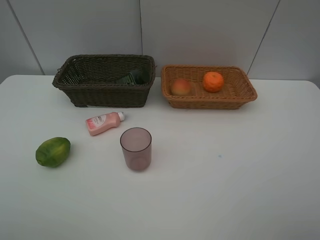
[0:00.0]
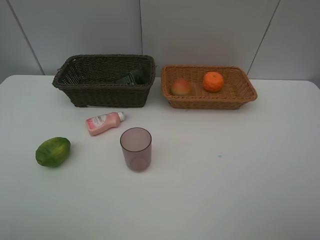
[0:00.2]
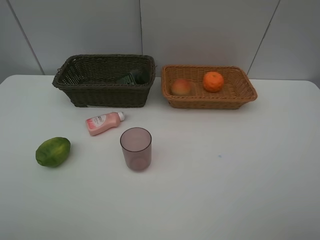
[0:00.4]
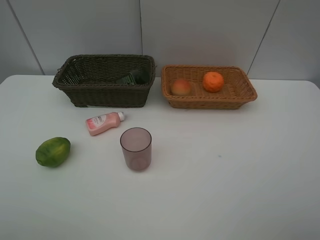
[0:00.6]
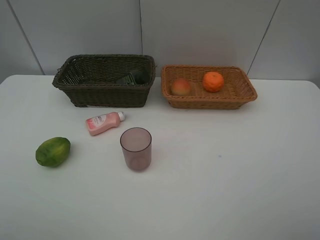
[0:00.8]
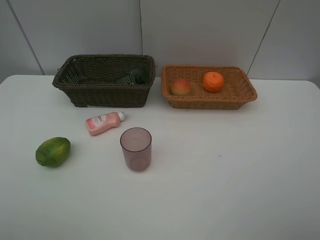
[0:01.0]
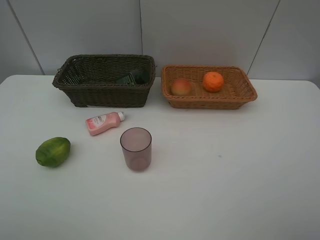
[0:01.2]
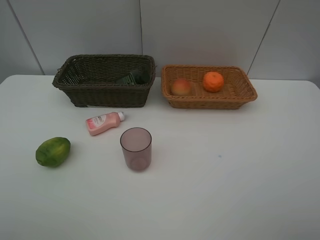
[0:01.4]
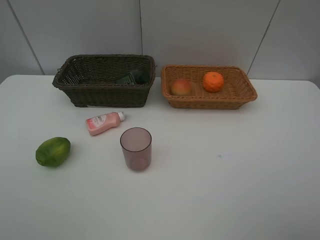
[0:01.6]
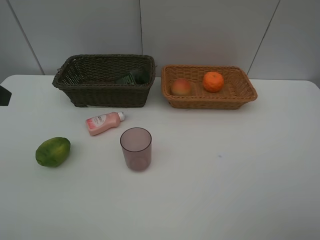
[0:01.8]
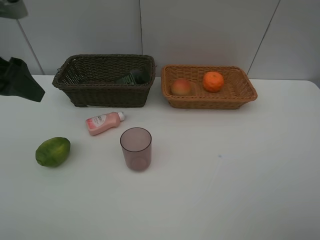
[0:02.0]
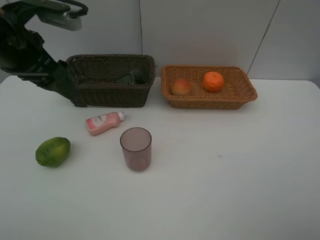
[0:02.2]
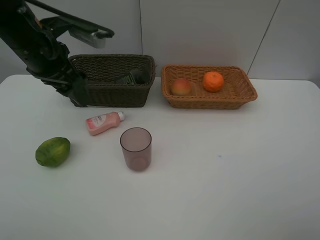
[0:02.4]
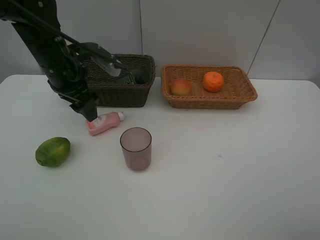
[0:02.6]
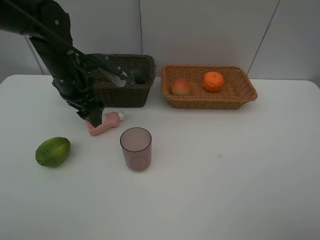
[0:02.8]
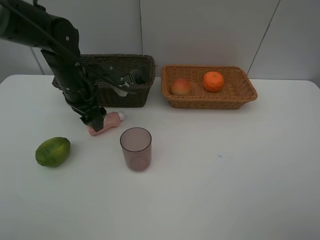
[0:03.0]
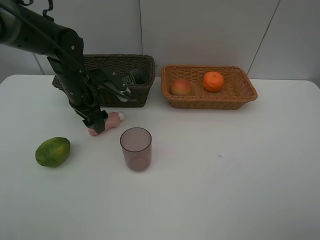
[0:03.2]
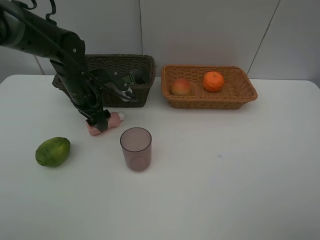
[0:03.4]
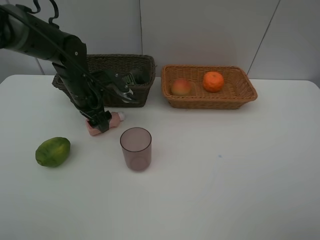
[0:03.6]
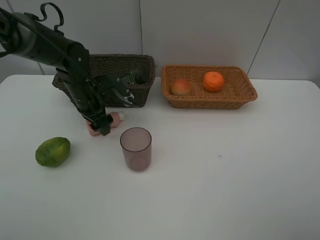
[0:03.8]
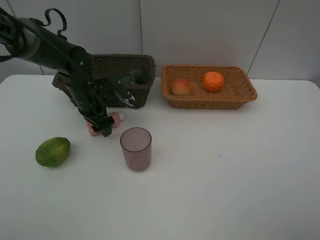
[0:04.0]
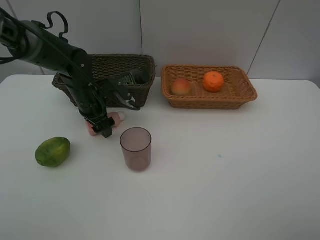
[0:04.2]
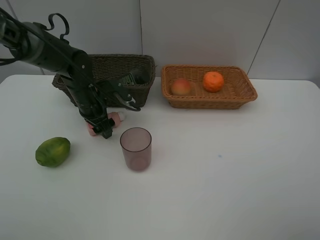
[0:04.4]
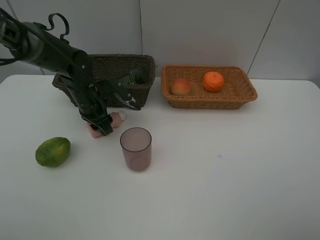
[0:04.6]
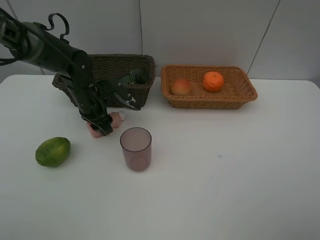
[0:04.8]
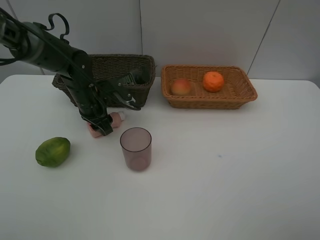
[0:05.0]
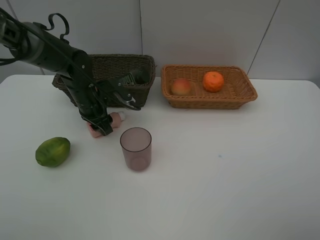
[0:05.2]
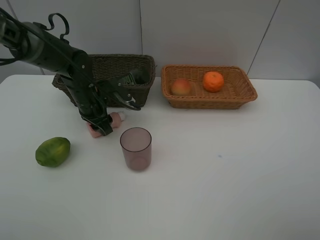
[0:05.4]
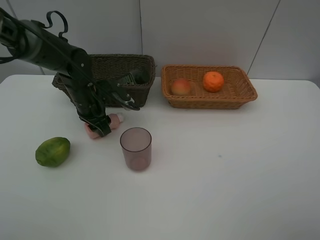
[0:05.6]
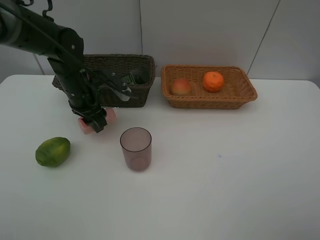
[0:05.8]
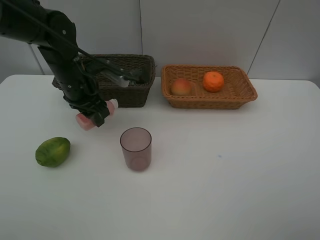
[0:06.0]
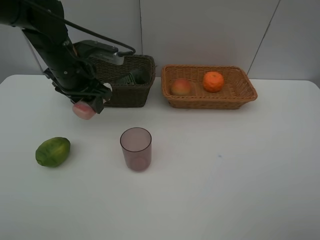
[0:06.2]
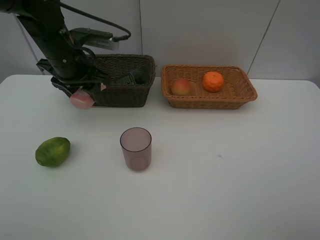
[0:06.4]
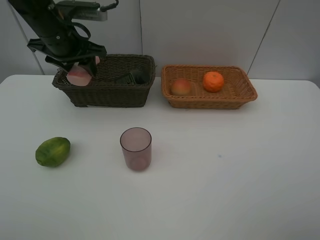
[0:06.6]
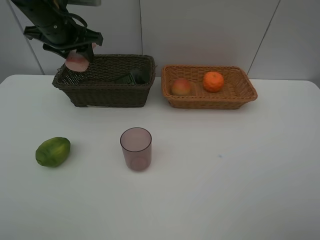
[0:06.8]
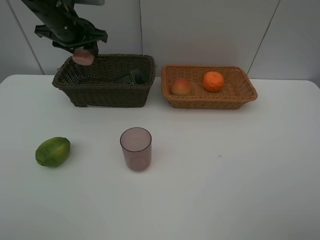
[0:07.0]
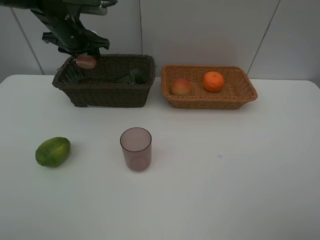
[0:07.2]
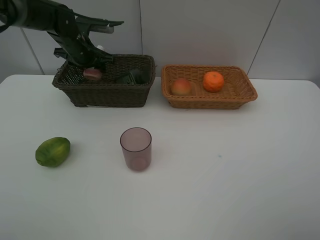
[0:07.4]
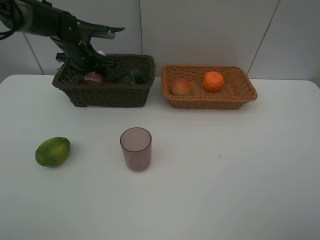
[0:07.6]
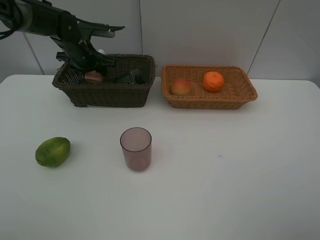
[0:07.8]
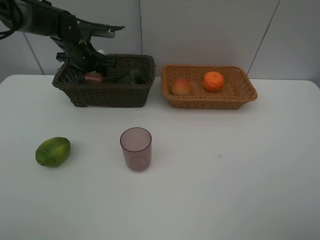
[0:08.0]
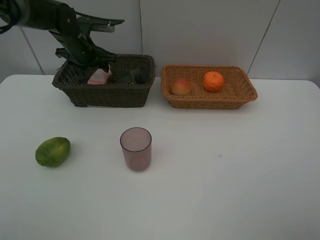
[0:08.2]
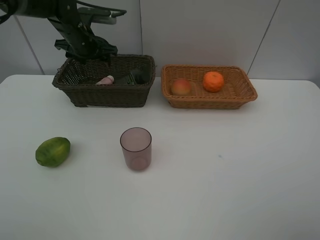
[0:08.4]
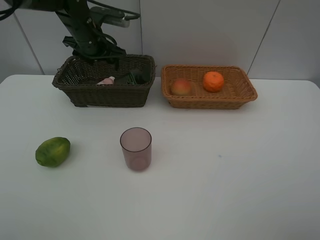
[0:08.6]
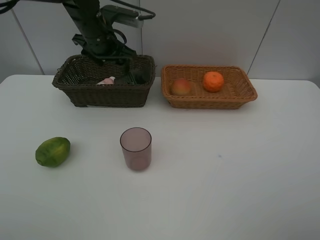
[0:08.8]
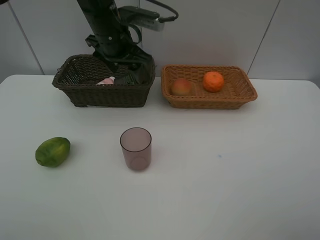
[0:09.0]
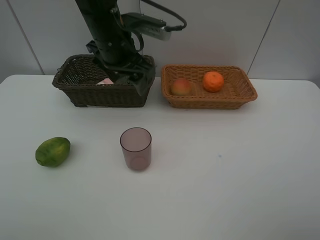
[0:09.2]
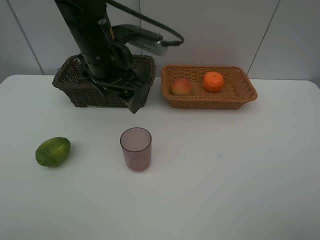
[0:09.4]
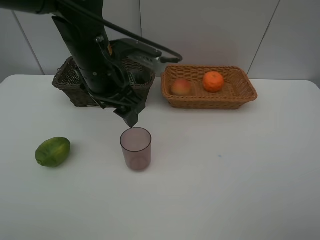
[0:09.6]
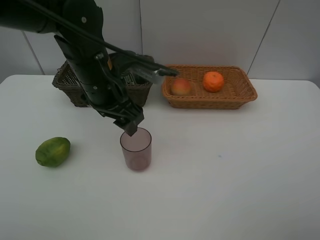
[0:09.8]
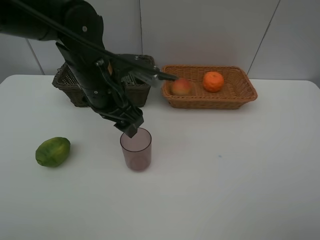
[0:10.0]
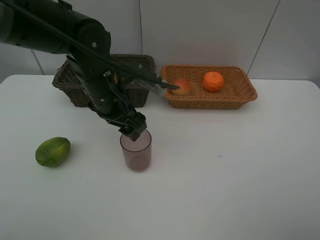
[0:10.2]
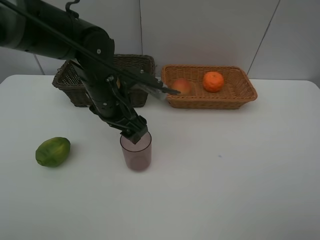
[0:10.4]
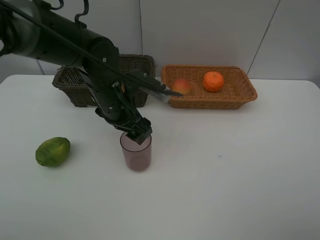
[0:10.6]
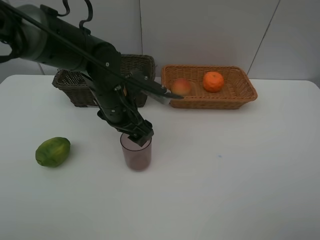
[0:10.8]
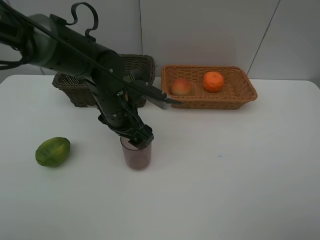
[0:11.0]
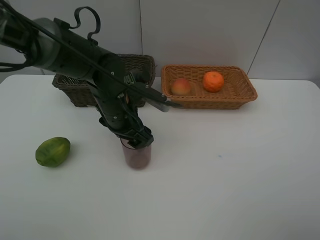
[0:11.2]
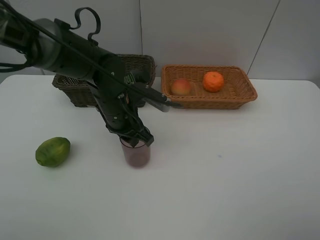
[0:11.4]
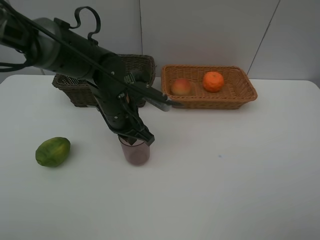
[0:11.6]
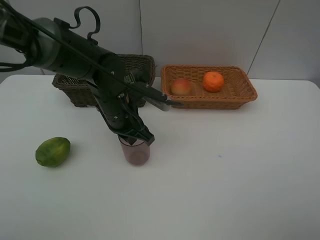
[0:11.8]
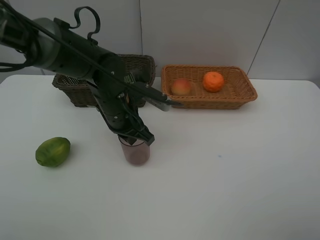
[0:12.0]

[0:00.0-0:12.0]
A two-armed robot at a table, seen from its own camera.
Task of the whole recording: place multiple objects separately in different baskets.
0:01.6 to 0:03.0: The left gripper is displaced forward, downward and to the right by some 35 cm.
0:03.0 to 0:04.4: The left gripper moves downward, some 5 cm.
0:04.4 to 0:06.0: The left gripper travels upward by about 5 cm.
0:06.0 to 0:07.6: The left gripper moves forward, some 15 cm.
0:07.6 to 0:09.0: The left gripper goes about 15 cm to the right, backward and upward.
0:09.0 to 0:10.4: The left gripper travels backward and downward by roughly 10 cm.
0:10.4 to 0:12.0: The left gripper closes.

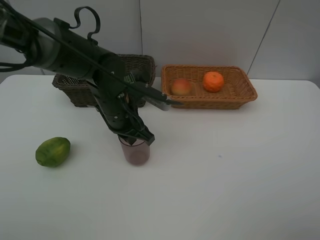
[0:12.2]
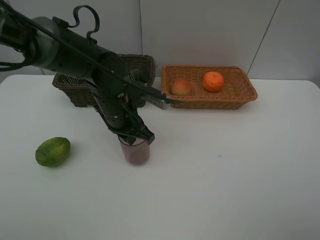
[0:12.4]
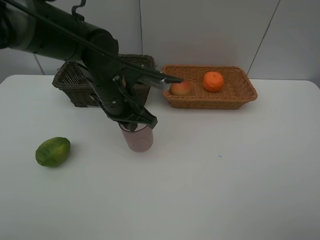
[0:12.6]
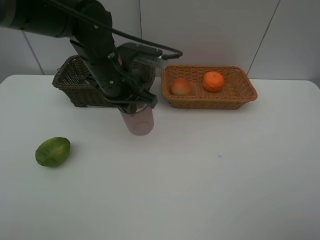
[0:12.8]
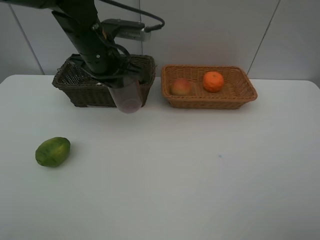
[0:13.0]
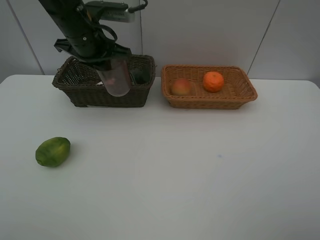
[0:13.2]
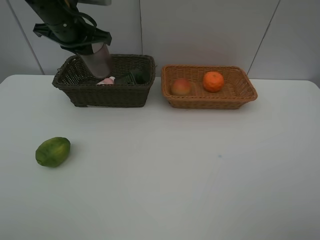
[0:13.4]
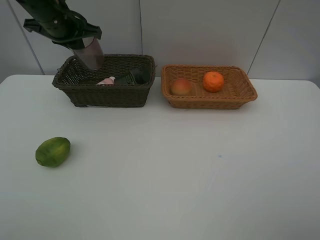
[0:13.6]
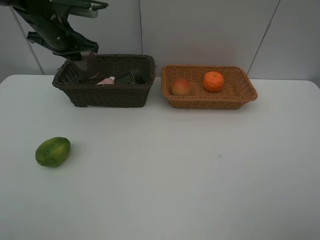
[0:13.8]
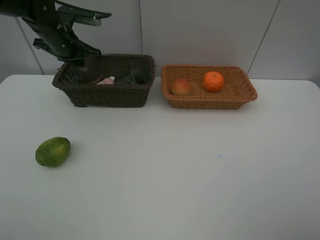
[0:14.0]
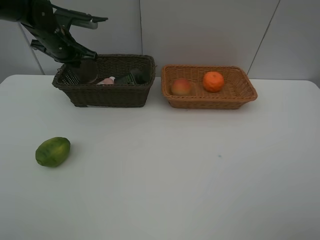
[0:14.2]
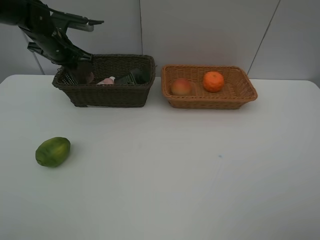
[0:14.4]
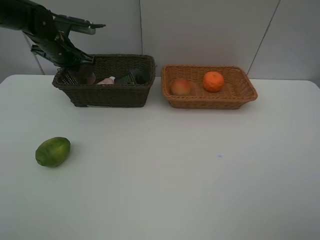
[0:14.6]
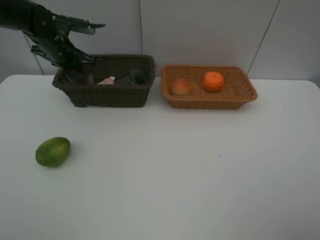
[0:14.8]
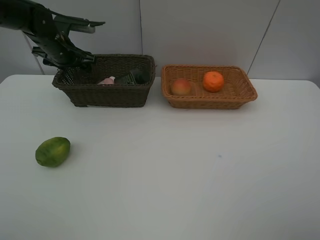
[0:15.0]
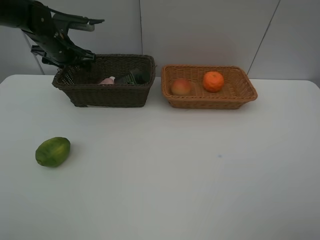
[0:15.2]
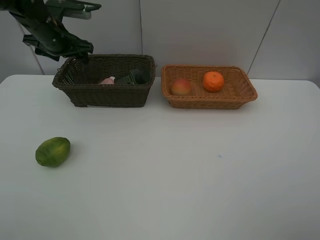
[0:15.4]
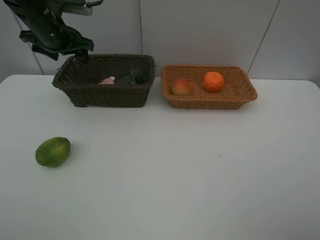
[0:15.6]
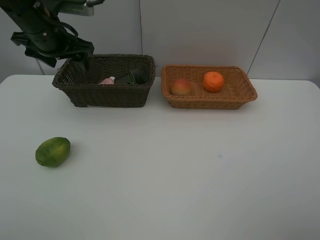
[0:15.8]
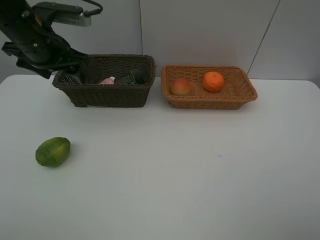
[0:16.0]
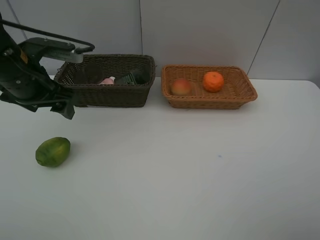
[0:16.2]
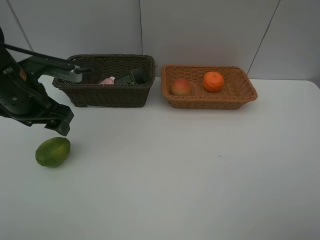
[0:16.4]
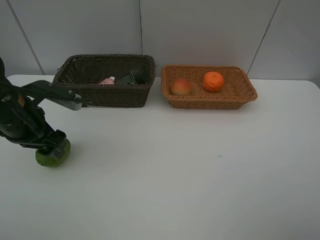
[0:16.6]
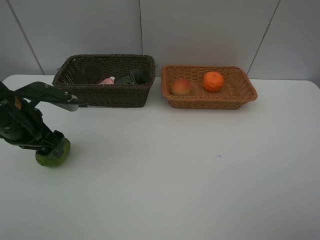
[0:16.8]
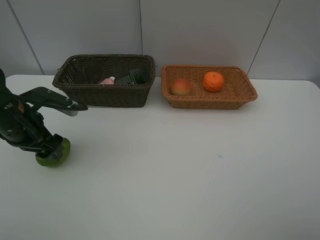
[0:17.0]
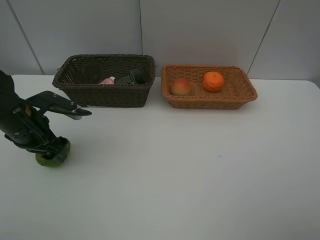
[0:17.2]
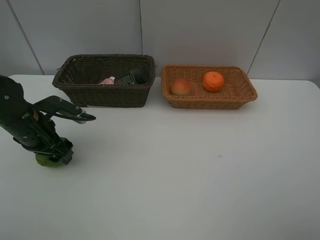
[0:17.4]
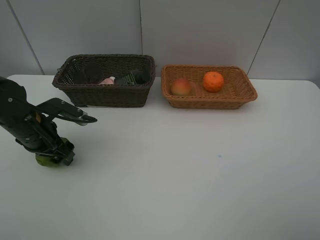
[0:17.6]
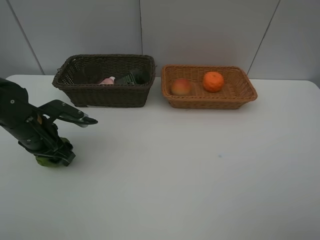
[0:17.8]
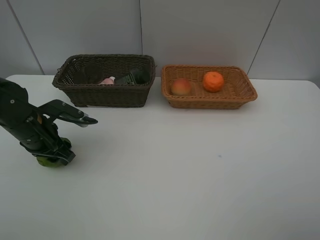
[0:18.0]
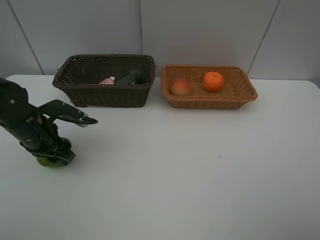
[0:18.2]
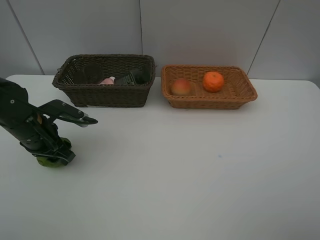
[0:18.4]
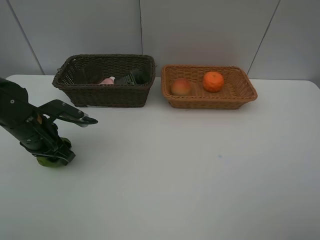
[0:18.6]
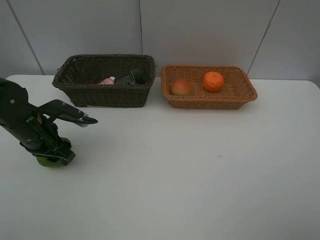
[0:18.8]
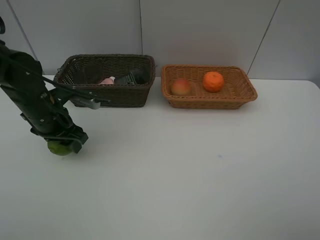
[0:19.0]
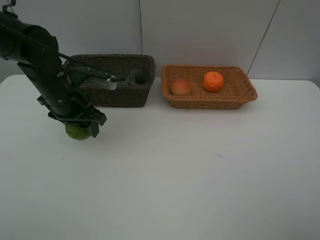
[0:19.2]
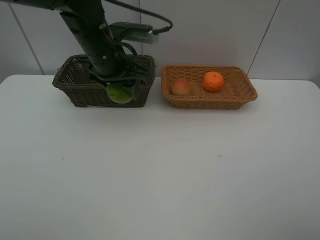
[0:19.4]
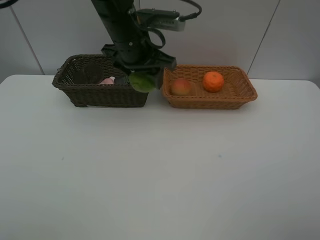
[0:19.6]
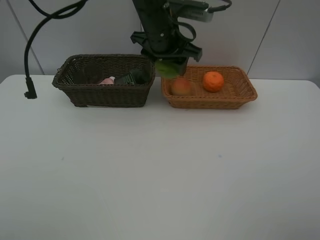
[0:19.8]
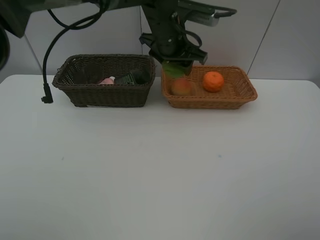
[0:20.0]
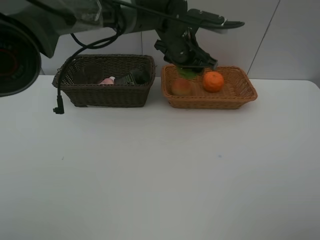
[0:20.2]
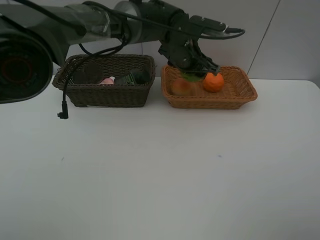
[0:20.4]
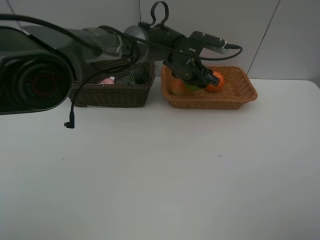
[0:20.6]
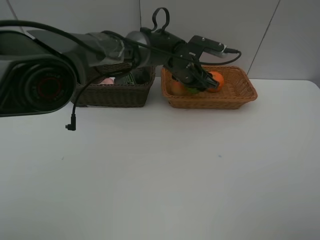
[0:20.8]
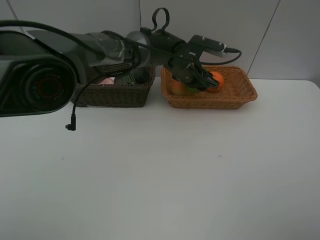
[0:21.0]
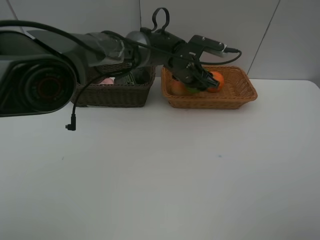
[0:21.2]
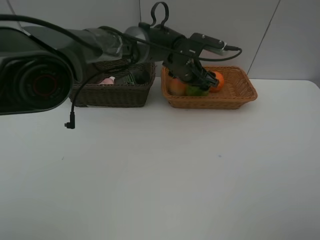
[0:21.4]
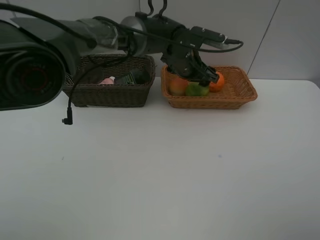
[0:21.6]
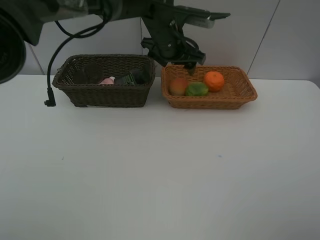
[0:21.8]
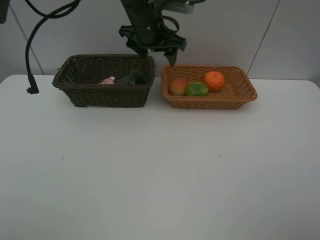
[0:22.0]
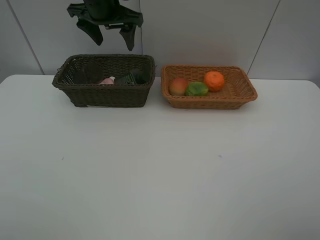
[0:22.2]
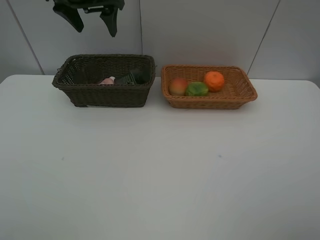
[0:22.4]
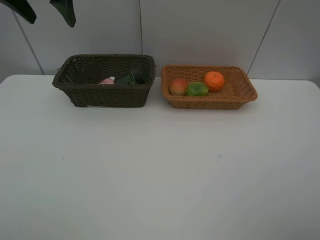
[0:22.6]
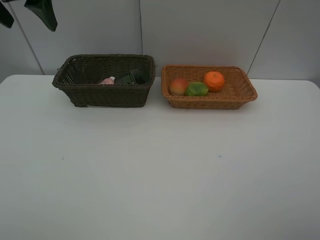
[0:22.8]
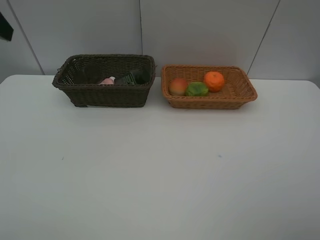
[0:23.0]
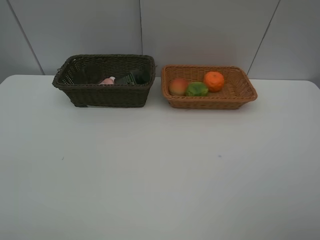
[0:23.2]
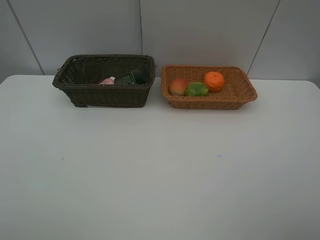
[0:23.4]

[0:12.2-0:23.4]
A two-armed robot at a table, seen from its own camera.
Task of the whole recording: place multiple objects separately in different baskets.
0:12.2 to 0:13.8: The left gripper heads to the left, forward and upward, covering approximately 25 cm.
0:13.8 to 0:15.4: The left gripper opens.
0:15.4 to 0:17.0: The left gripper travels backward by some 20 cm.
0:17.0 to 0:18.6: The grippers make only small movements.
0:18.6 to 0:20.2: The left gripper goes some 35 cm to the right and forward.
0:20.2 to 0:21.8: The left gripper moves roughly 5 cm downward and comes back.
0:21.8 to 0:23.4: The left gripper moves backward and to the left, roughly 50 cm.
